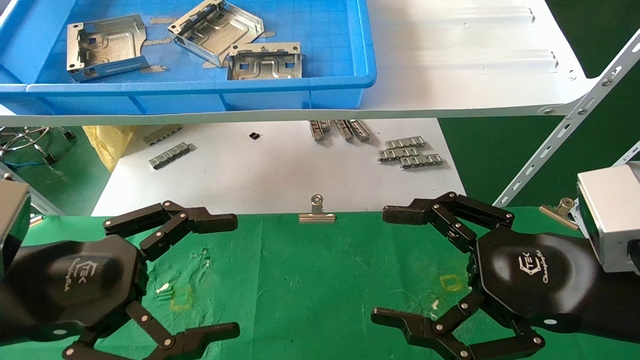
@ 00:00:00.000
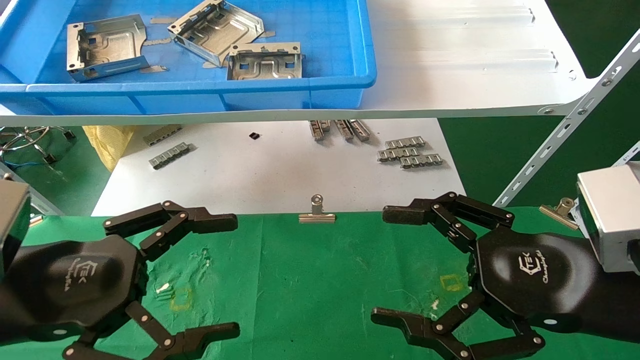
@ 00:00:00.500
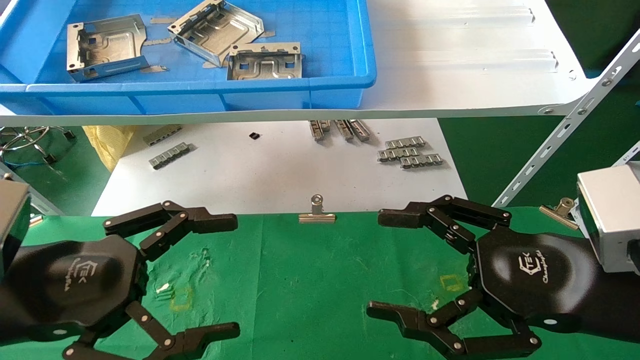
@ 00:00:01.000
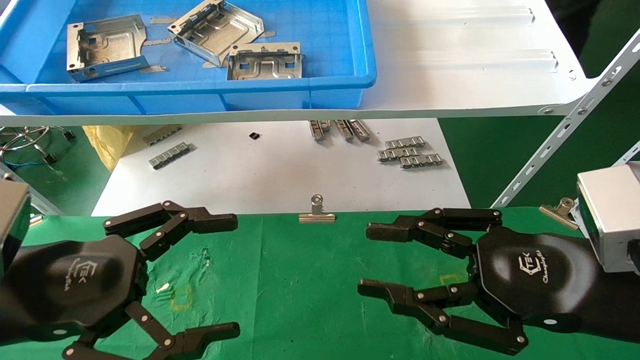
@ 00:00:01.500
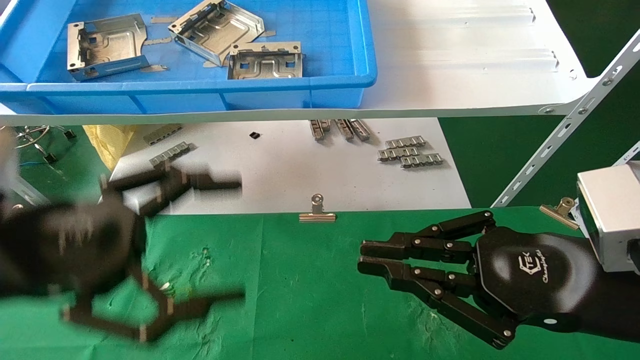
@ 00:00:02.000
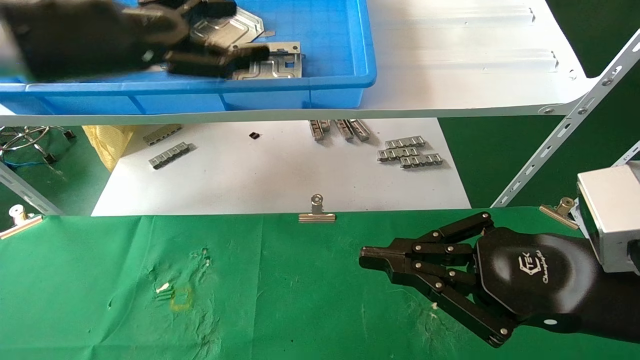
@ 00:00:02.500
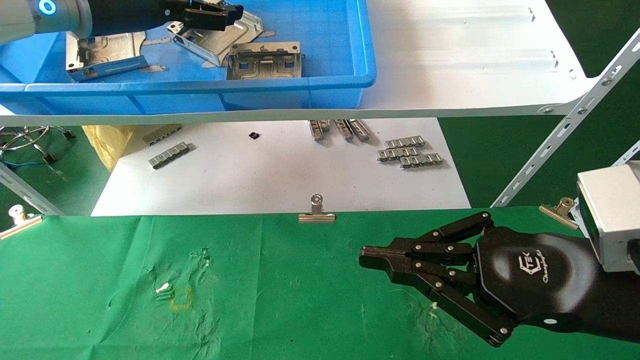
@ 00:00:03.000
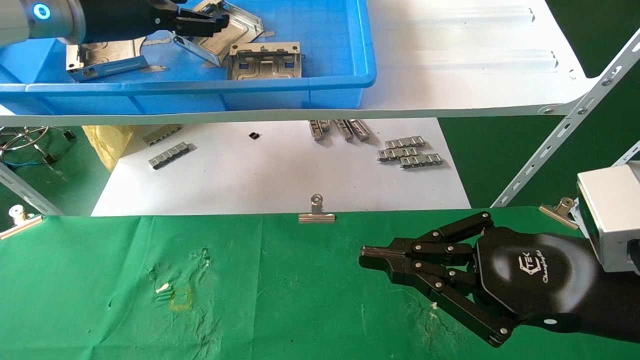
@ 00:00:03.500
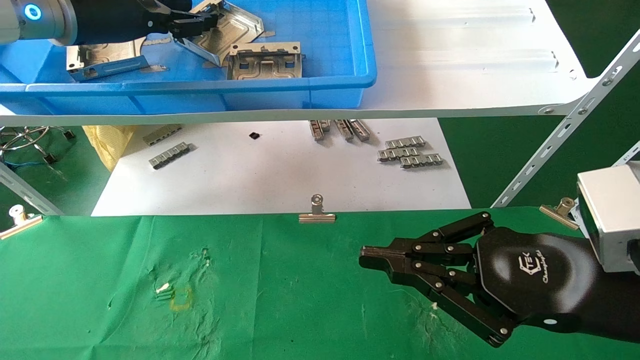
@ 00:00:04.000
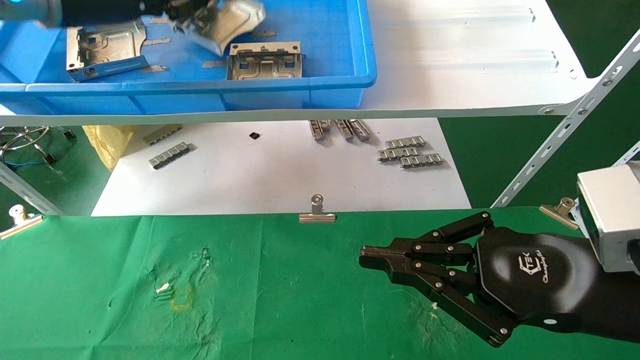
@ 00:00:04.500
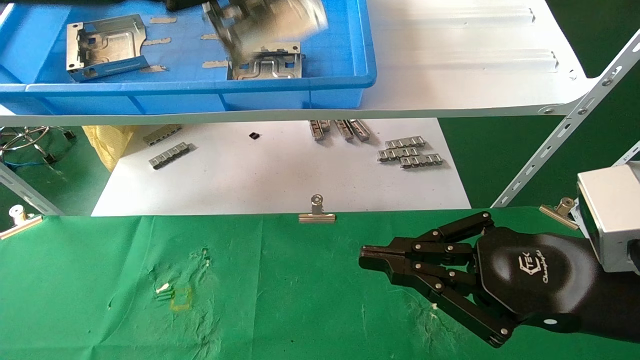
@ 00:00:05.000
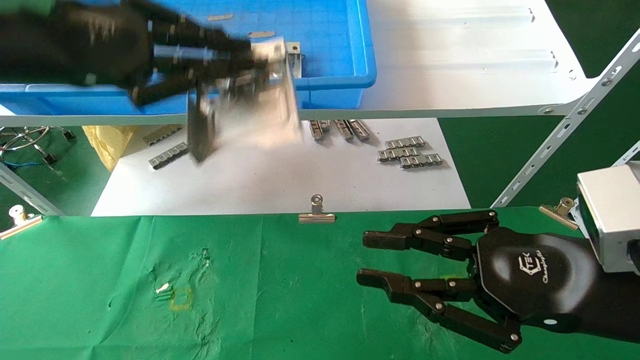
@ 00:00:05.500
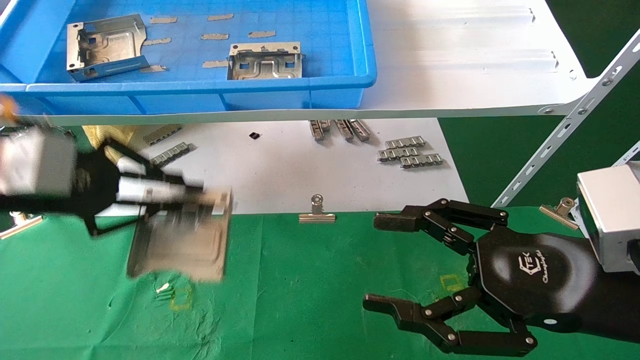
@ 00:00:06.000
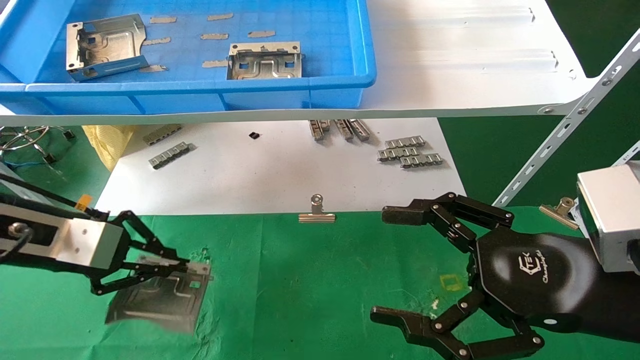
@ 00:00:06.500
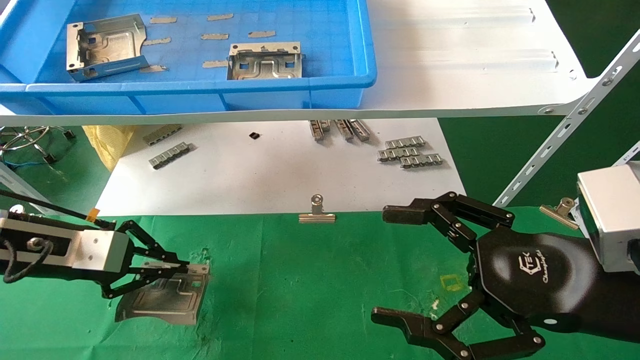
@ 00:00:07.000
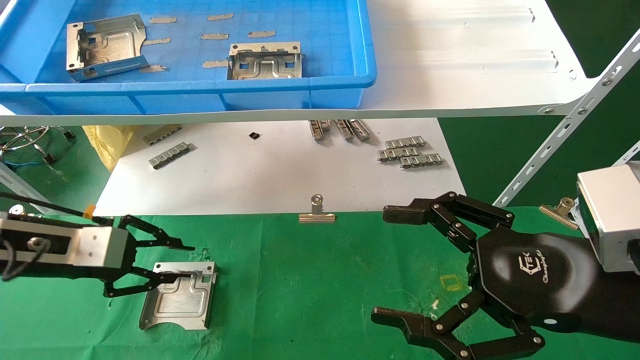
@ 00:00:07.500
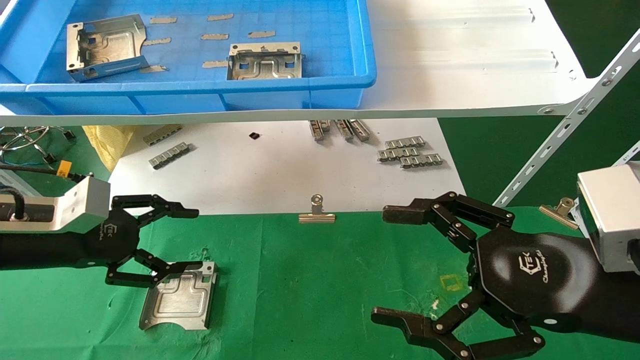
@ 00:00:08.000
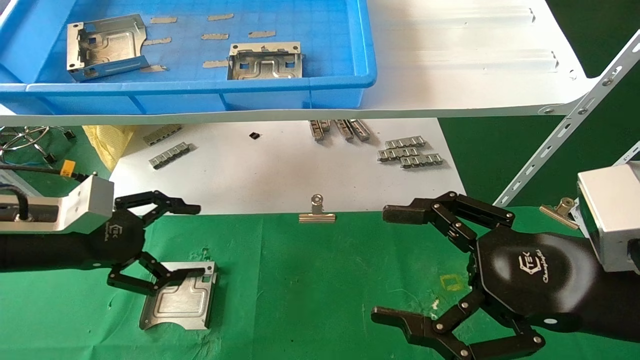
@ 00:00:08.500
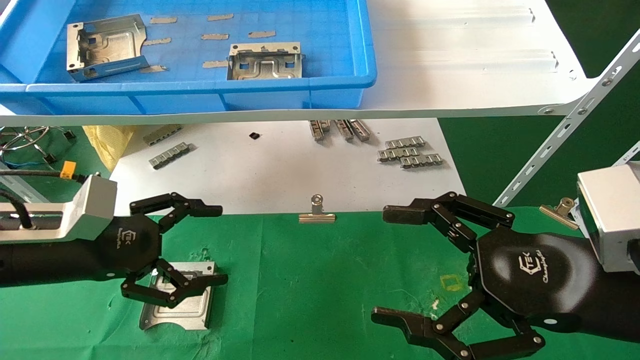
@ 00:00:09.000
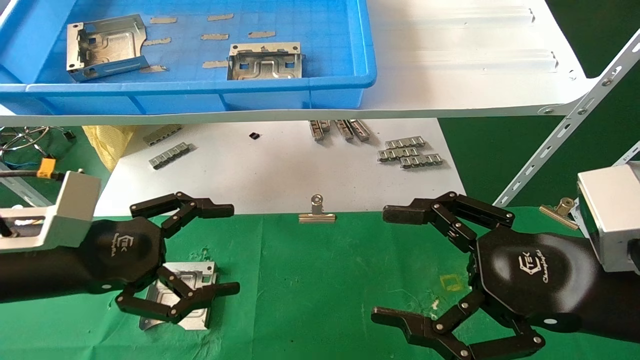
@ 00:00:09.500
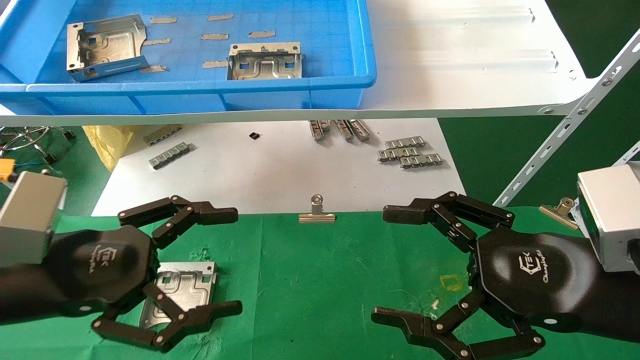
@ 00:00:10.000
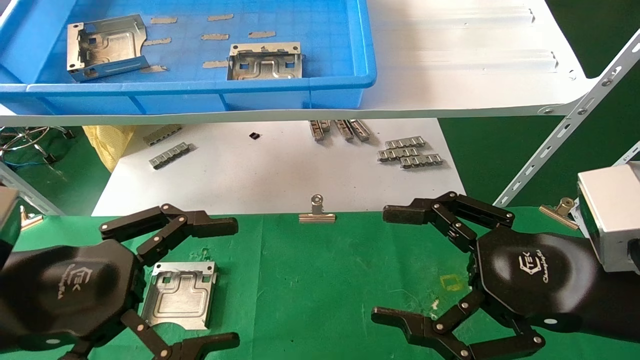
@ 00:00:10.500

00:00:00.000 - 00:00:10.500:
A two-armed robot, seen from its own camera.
Task of the whole recording: use the mechanical arm to pick up the parts and place them on the table.
Step, 00:00:02.500 - 00:00:04.500: Pick up the hard drive bracket from the feeding area.
Step, 00:00:05.000 - 00:00:07.000: Place the hard drive bracket into the box.
00:00:00.000 - 00:00:02.000: The left gripper moves upward, about 5 cm, while the right gripper closes its fingers.
00:00:02.000 - 00:00:04.000: The left gripper shifts some 25 cm forward and upward, and closes up.
00:00:04.000 - 00:00:06.500: The right gripper opens up; the left gripper travels downward and backward by some 25 cm, and closes its fingers.
00:00:06.500 - 00:00:08.500: The left gripper opens up.
00:00:08.500 - 00:00:10.500: The left gripper goes roughly 15 cm backward and to the right.

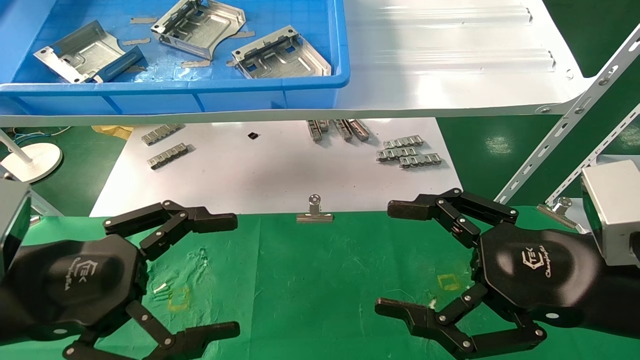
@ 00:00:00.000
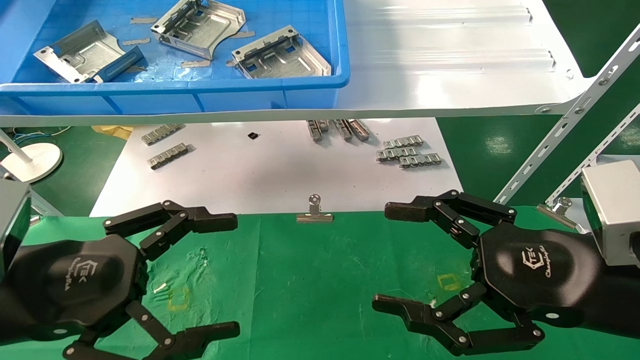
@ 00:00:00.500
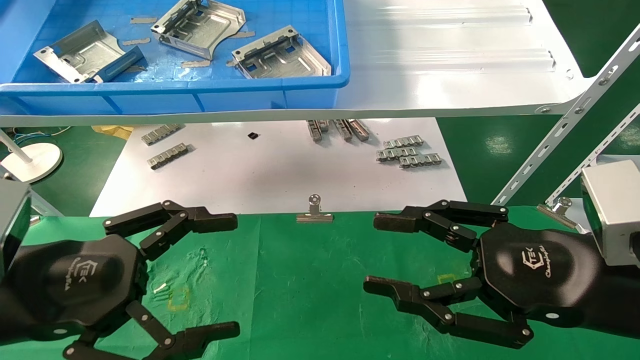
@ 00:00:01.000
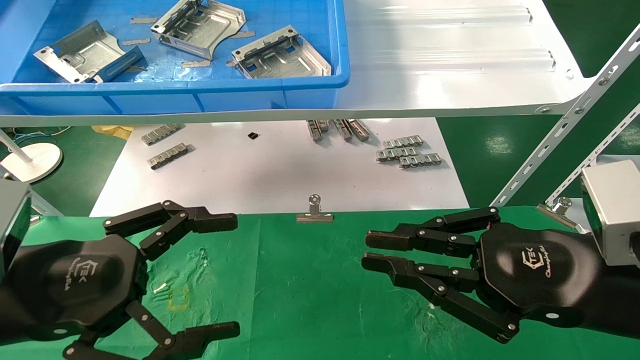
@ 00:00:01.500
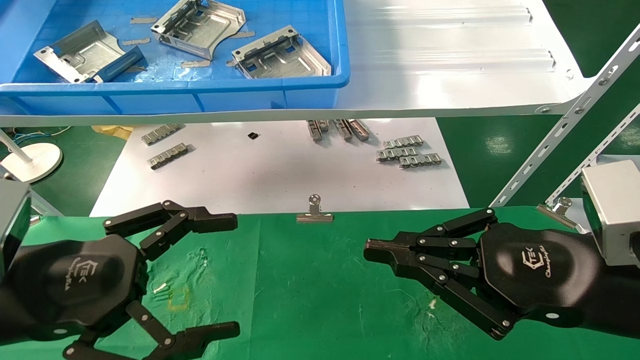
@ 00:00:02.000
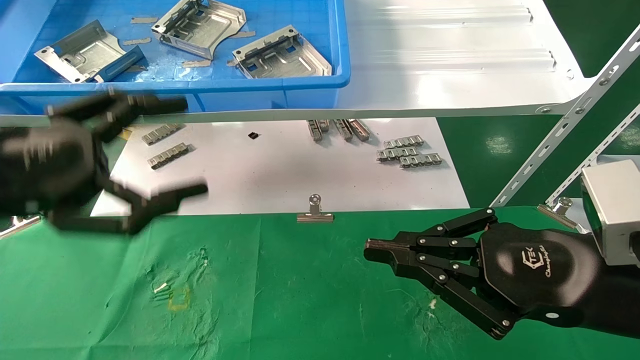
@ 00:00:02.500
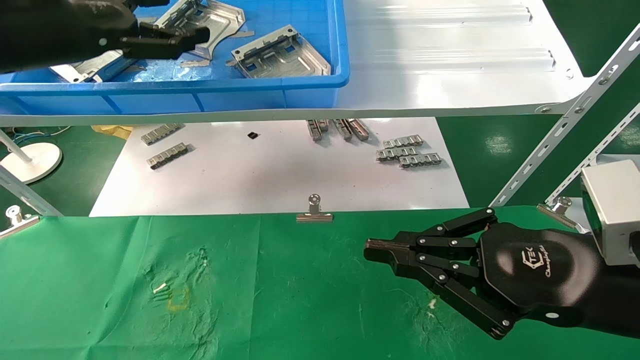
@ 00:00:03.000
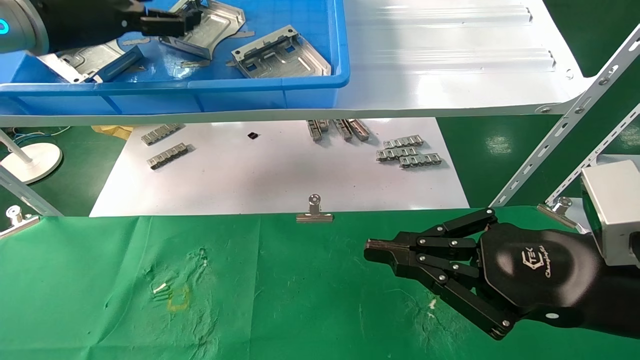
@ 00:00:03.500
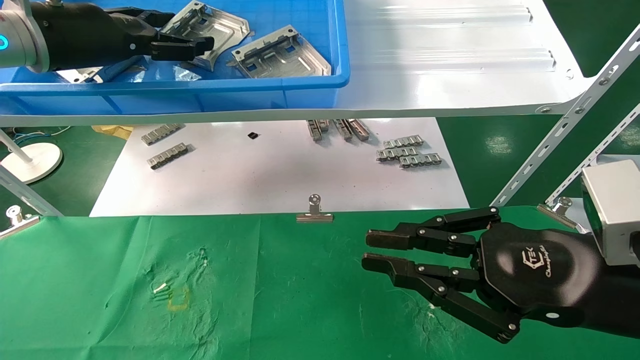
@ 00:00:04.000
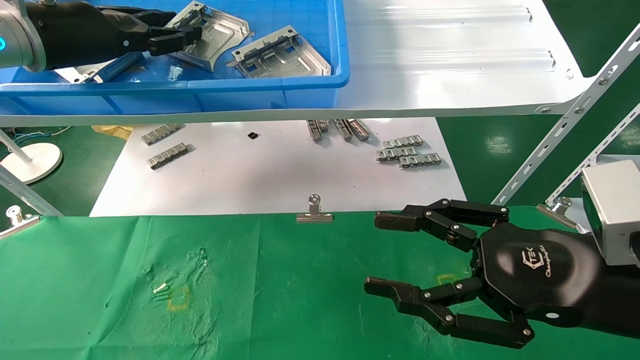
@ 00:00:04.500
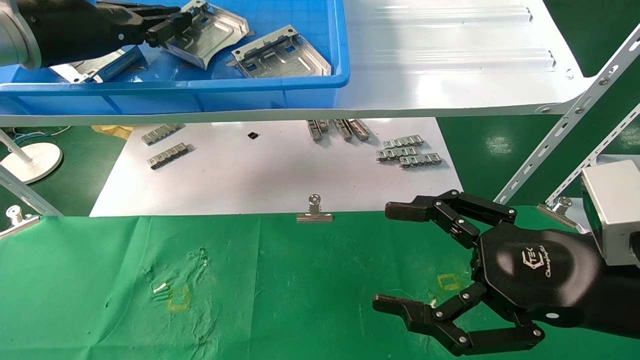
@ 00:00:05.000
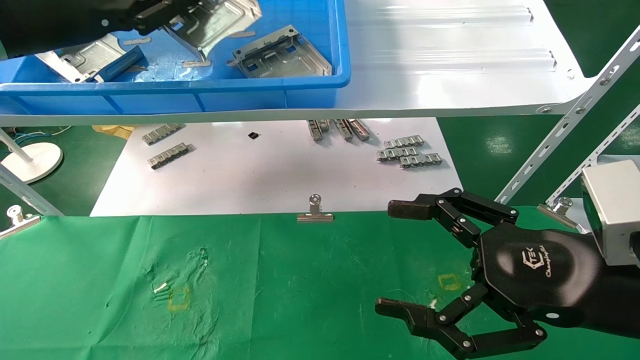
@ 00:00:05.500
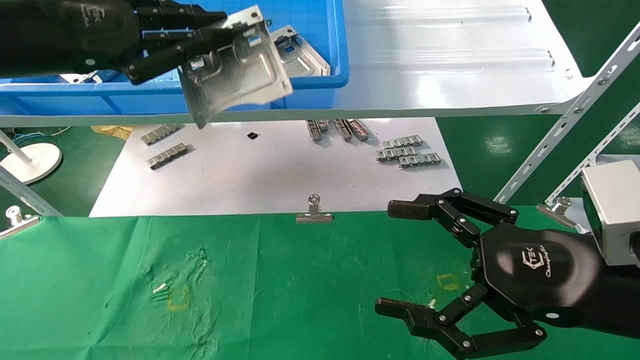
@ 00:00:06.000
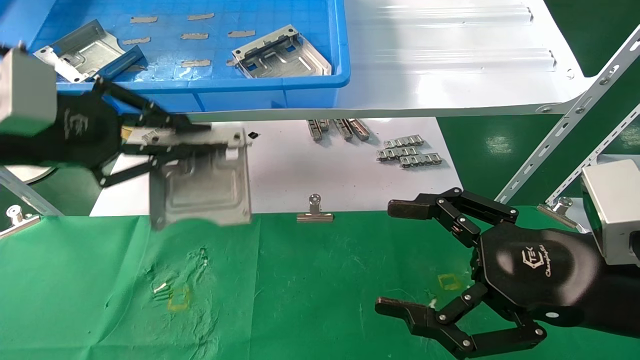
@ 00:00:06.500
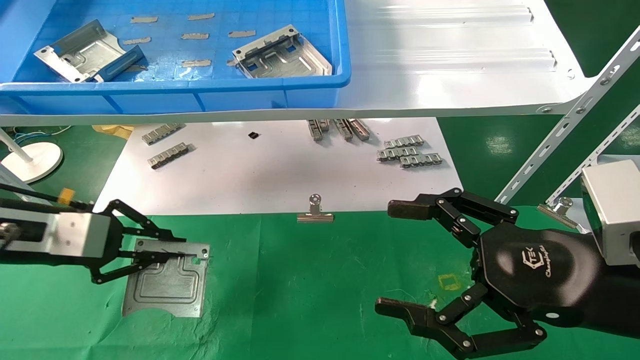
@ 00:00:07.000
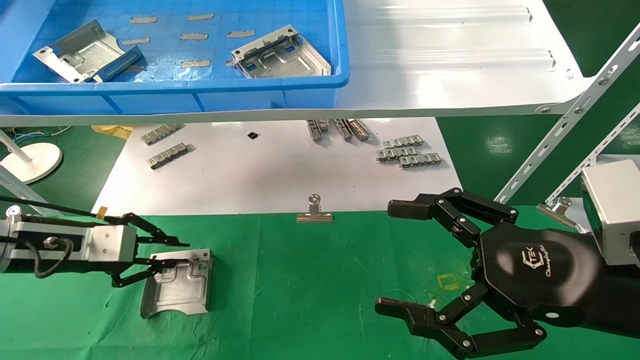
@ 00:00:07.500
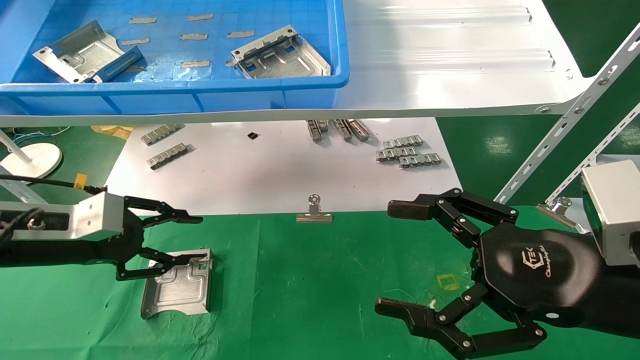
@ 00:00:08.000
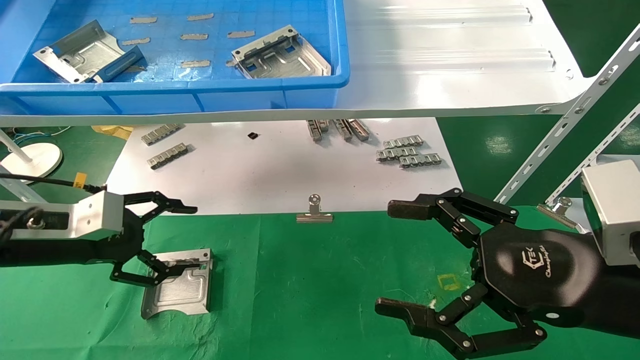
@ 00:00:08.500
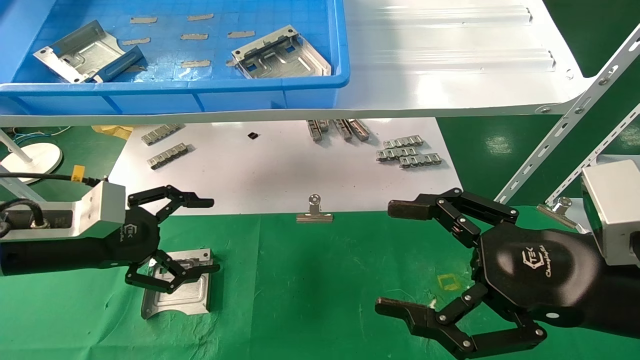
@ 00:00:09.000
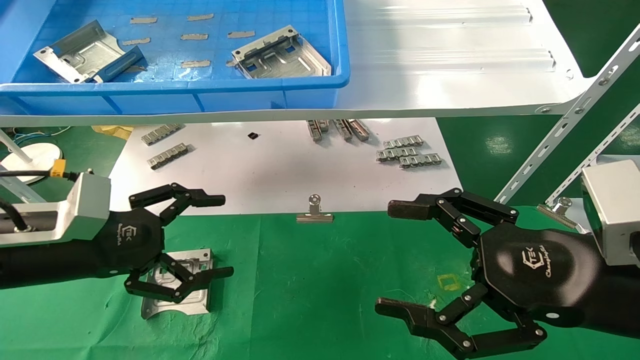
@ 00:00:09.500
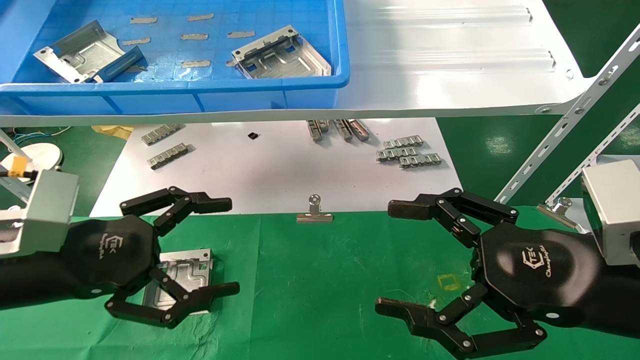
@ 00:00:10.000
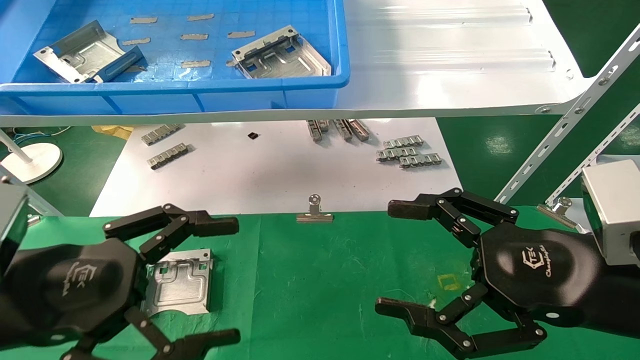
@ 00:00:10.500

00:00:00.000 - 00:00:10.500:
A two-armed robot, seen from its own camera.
Task of the whole recording: use the mechanical arm to pick up the parts and place them on the table.
Step, 00:00:02.500 - 00:00:04.500: Pick up the hard drive bracket from the feeding area.
Step, 00:00:05.000 - 00:00:07.500: Place the hard drive bracket into the box.
00:00:00.000 - 00:00:02.000: The right gripper closes.
00:00:02.000 - 00:00:04.000: The left gripper heads forward and upward, covering roughly 30 cm.
00:00:04.000 - 00:00:06.500: The left gripper moves backward and downward, roughly 15 cm, and closes up, while the right gripper opens.
00:00:06.500 - 00:00:08.500: The left gripper goes roughly 15 cm downward and forward, and opens its fingers.
00:00:08.500 - 00:00:10.500: The left gripper moves backward and to the right, some 15 cm.
